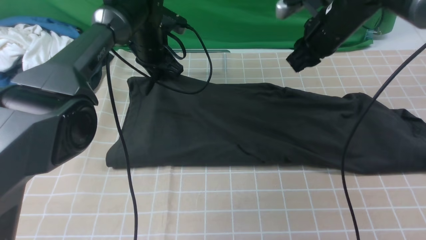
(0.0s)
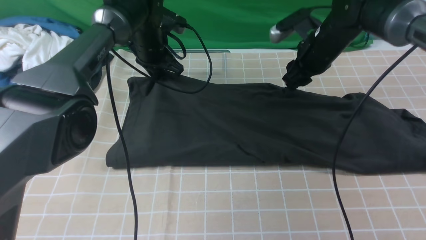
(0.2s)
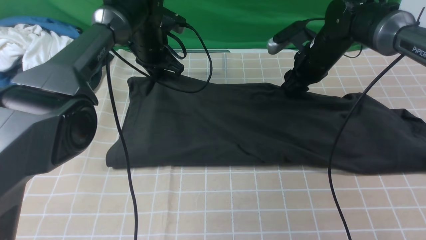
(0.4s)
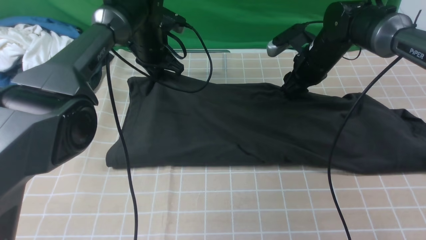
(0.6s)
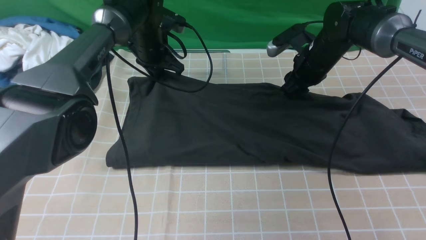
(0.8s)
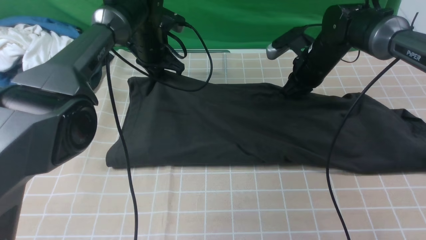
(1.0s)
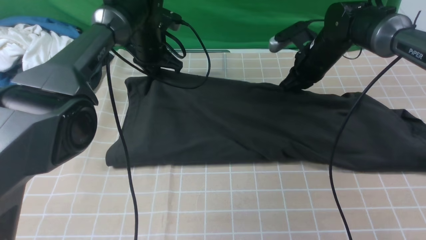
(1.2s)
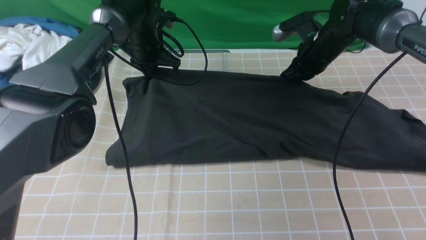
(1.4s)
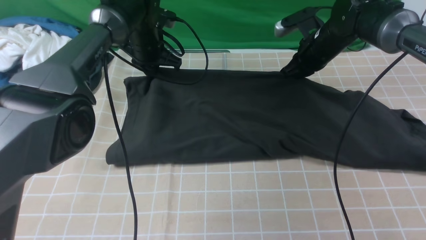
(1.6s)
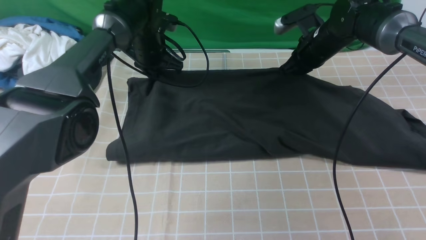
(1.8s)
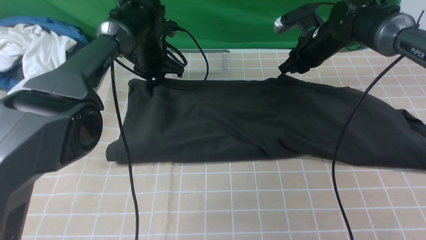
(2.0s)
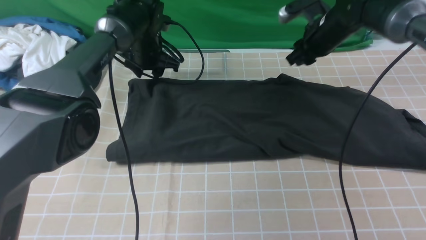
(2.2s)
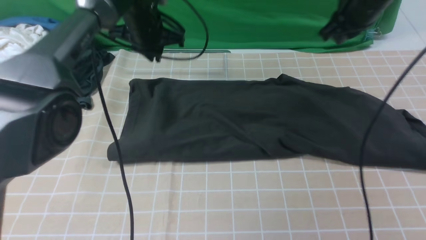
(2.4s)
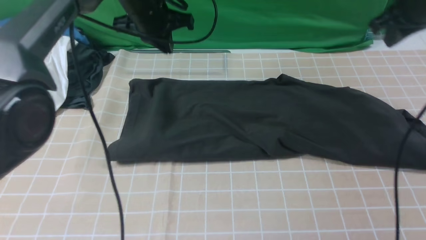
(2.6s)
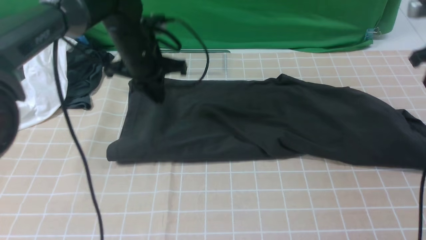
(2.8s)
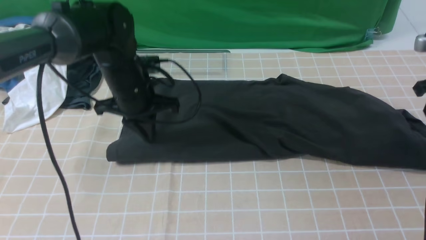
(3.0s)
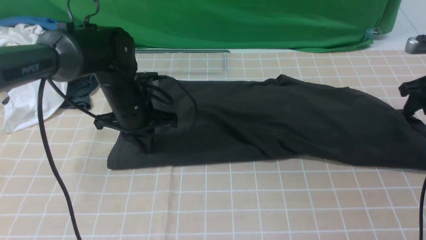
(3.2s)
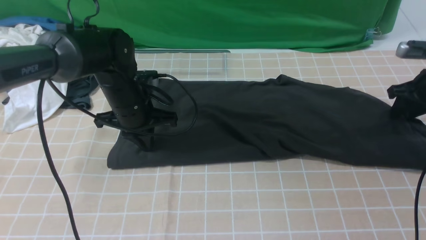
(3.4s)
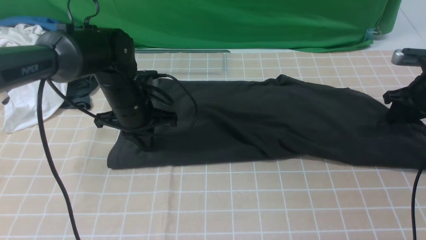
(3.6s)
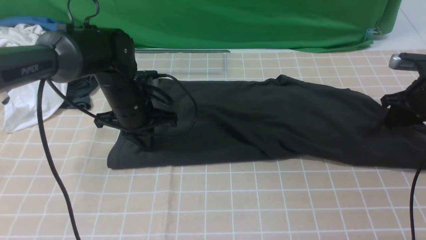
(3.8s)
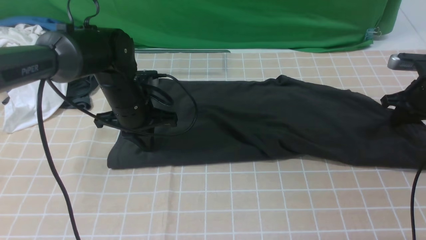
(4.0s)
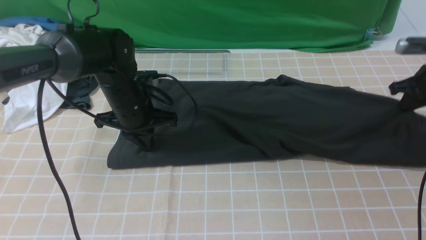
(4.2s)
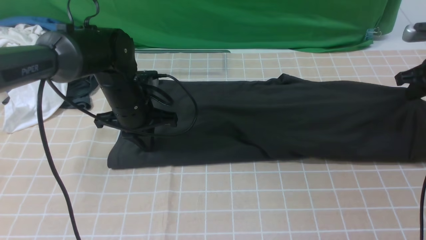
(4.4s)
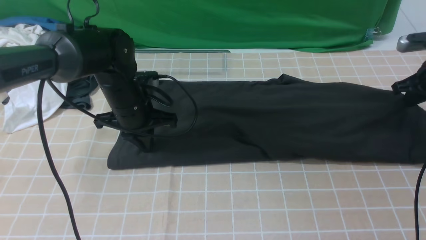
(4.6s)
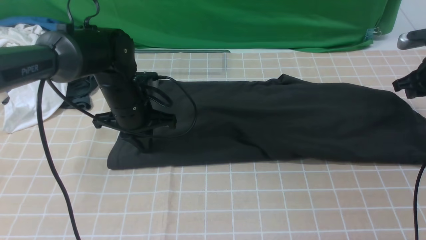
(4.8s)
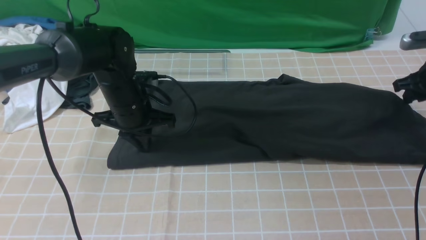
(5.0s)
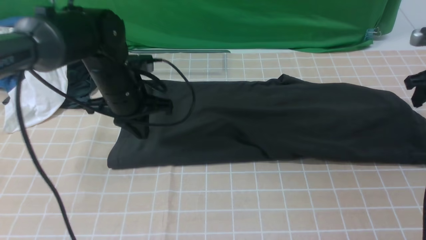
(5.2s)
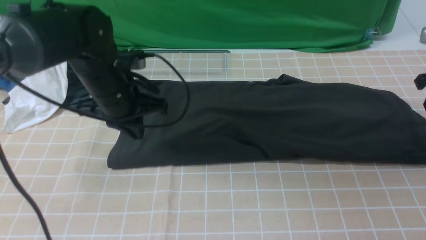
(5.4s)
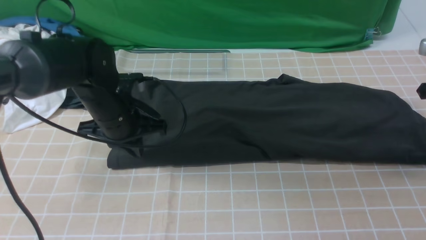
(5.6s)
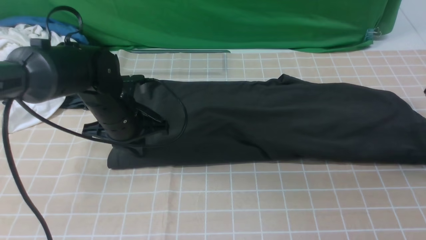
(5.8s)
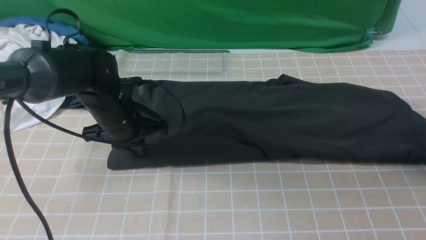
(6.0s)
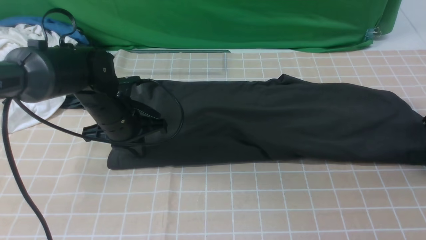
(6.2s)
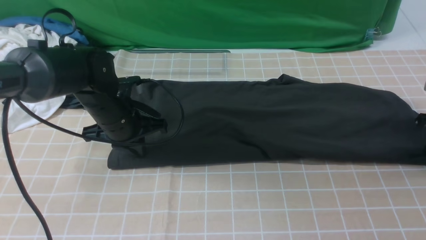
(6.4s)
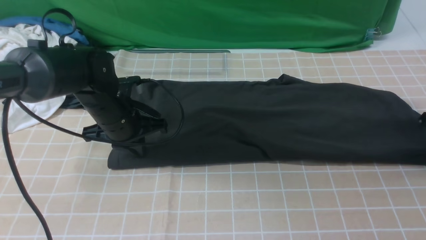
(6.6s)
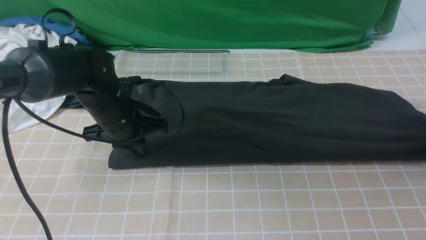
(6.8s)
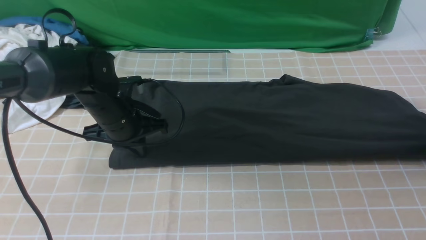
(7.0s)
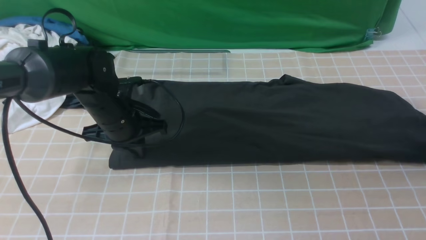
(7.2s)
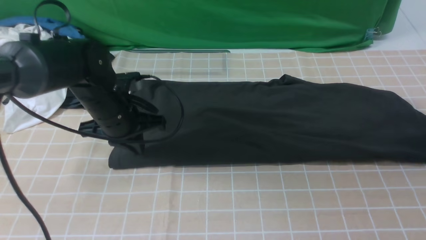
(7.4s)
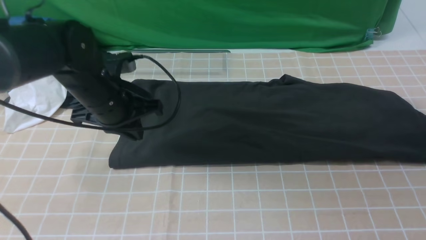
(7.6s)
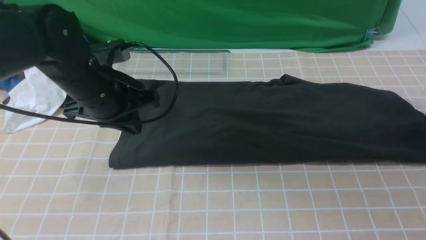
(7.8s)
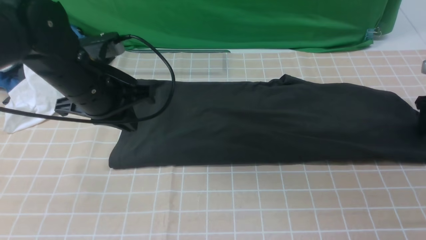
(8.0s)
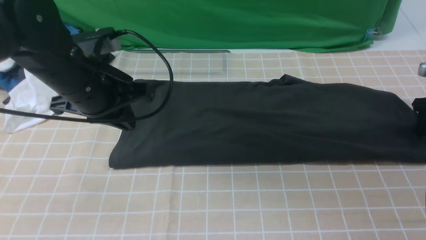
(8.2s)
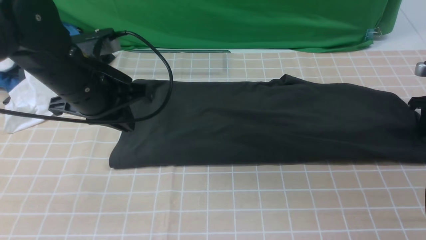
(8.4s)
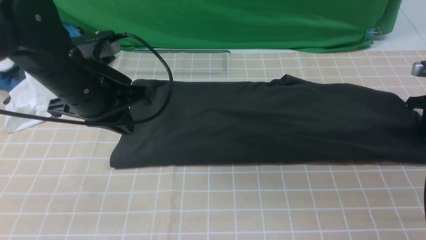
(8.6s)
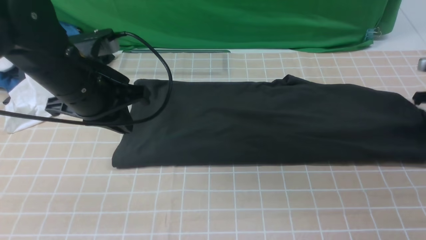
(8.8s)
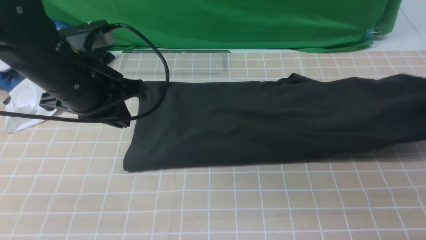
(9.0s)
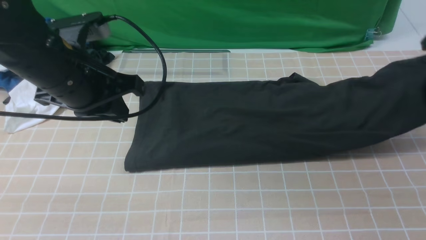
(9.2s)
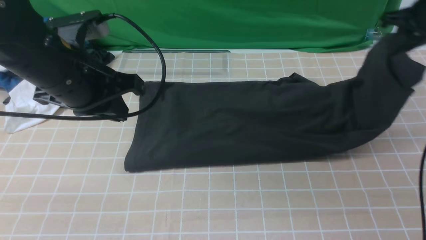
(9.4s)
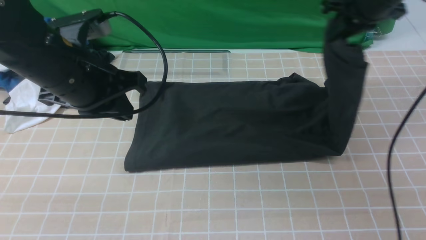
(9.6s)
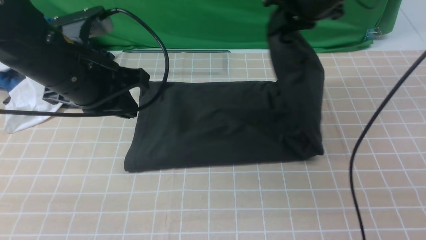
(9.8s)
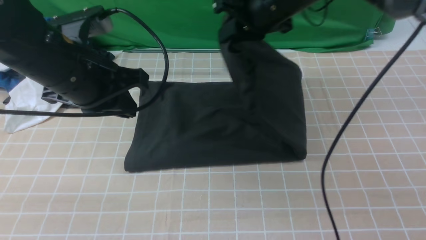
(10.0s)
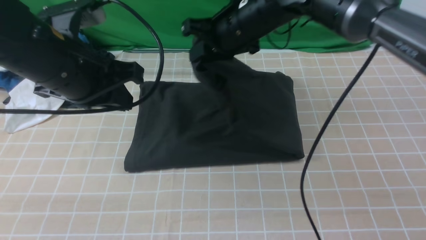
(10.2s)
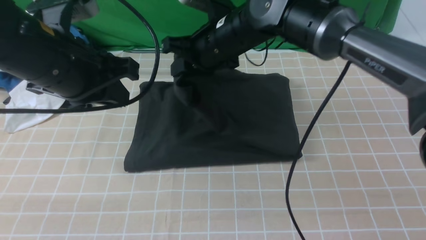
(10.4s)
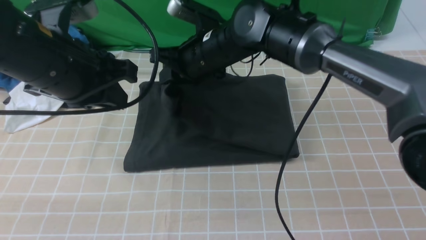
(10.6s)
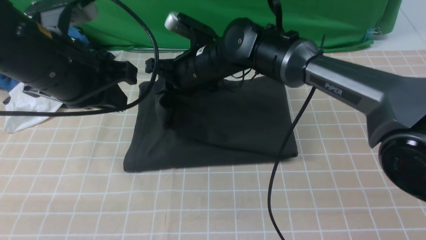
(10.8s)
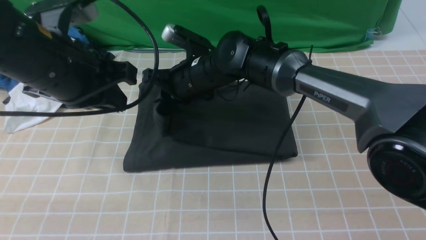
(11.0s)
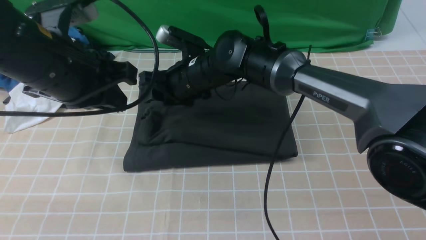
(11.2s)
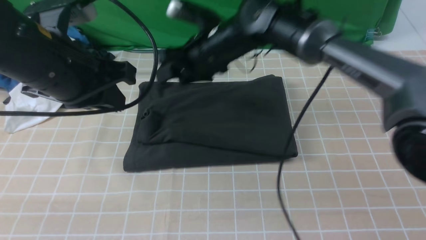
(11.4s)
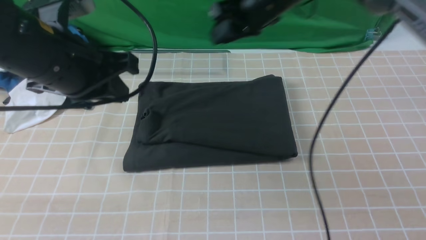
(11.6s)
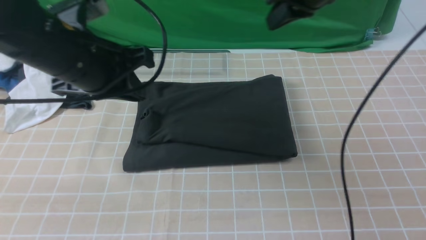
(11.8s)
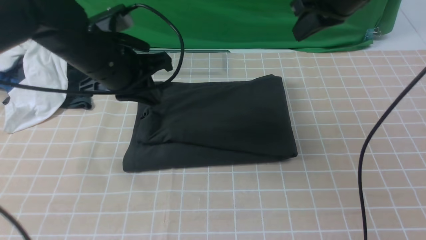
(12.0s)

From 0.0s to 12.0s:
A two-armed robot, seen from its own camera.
Step, from 0.0s to 2.2s: use both arms to drag the lower edge of the fabric forward and fold it over the upper edge.
Step, from 2.4s to 8.6s: use the right arm to clamp the right edge of the fabric.
Step, from 8.8s to 11.2s: use the right arm to drag the right edge of the fabric to the left and folds it over the left edge.
From 0.0s to 1.6s: The right gripper travels downward by approximately 5 cm, and closes its fingers.
From 1.6s to 3.0s: The left gripper goes roughly 15 cm backward, and opens, then closes again. The right gripper goes some 20 cm to the right and backward, and opens its fingers.
From 3.0s to 4.4s: The right gripper closes its fingers.
From 4.4s to 6.0s: The right gripper travels backward by about 5 cm, and opens.
From 6.0s to 7.6s: The left gripper goes some 5 cm upward; the right gripper shifts by roughly 5 cm, and closes, then reopens.
From 7.6s to 9.0s: The left gripper heads upward, covering about 5 cm. The right gripper moves approximately 5 cm downward and comes back, and closes its fingers.
From 9.0s to 10.4s: The right gripper shifts about 40 cm to the left.
From 10.4s to 12.0s: The right gripper shifts about 20 cm to the right and upward, and opens, then closes again; the left gripper is displaced forward and downward by some 10 cm.

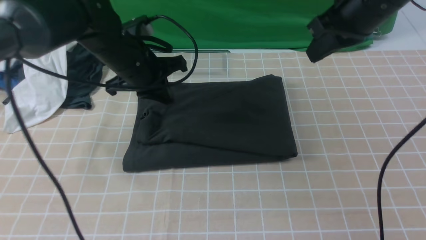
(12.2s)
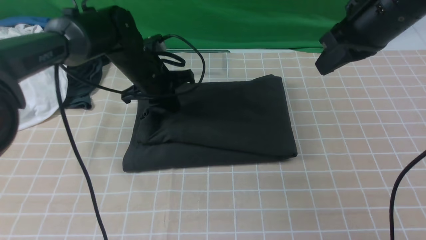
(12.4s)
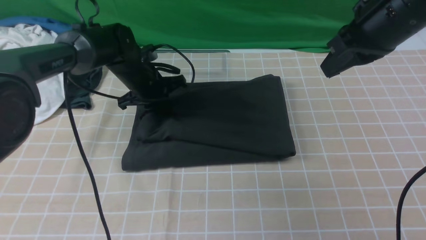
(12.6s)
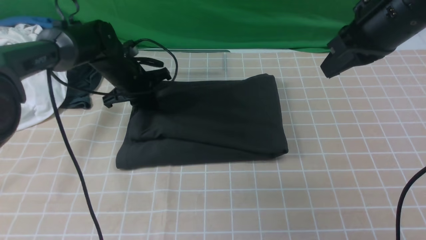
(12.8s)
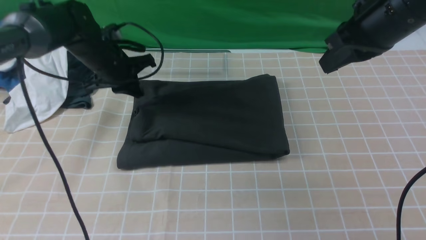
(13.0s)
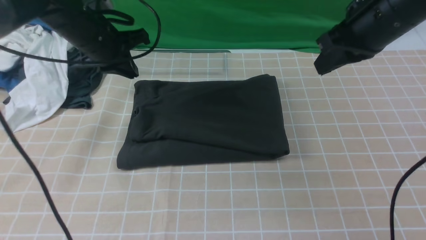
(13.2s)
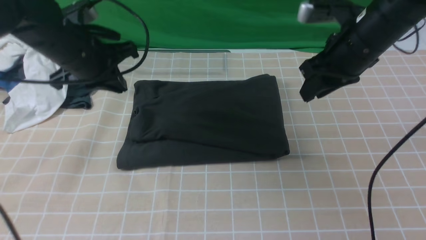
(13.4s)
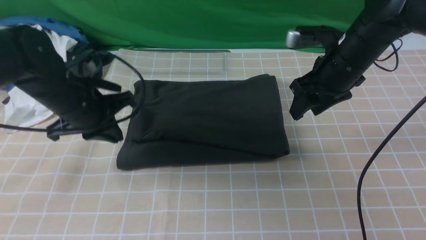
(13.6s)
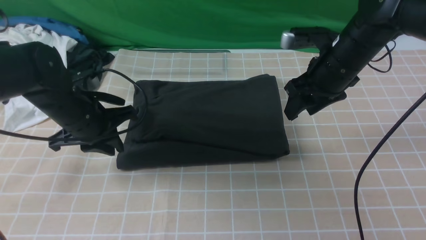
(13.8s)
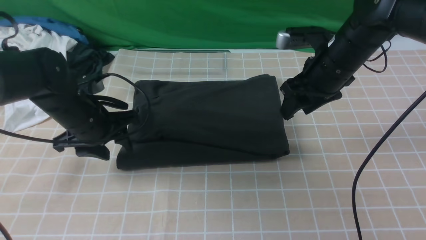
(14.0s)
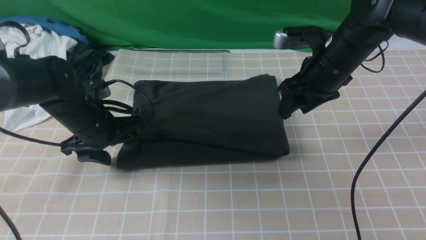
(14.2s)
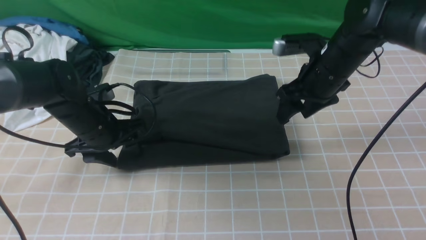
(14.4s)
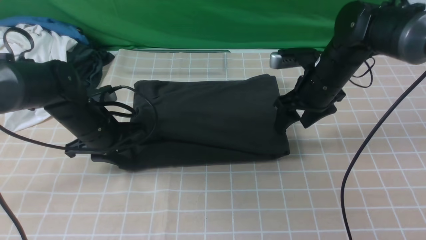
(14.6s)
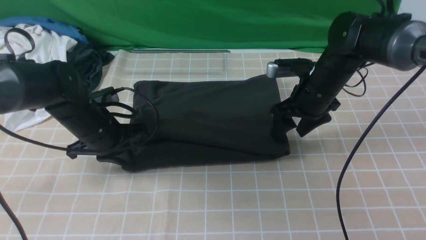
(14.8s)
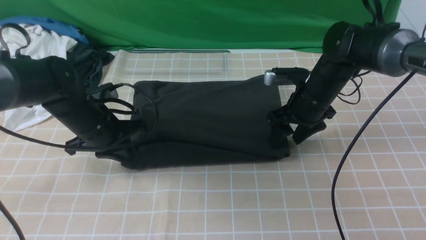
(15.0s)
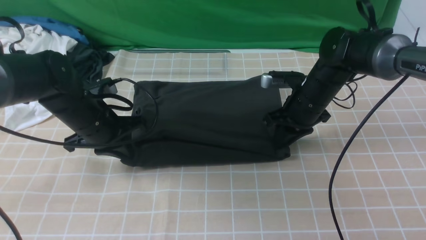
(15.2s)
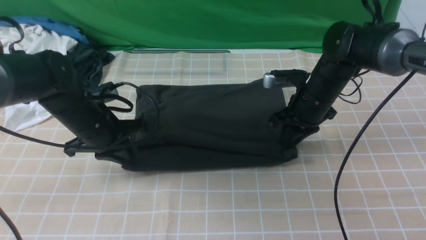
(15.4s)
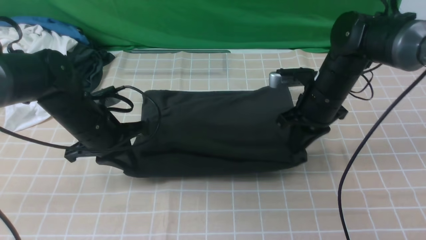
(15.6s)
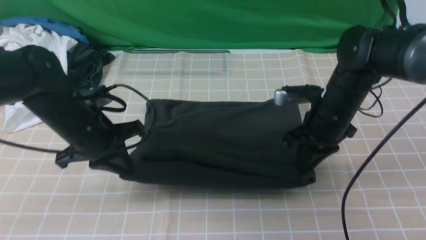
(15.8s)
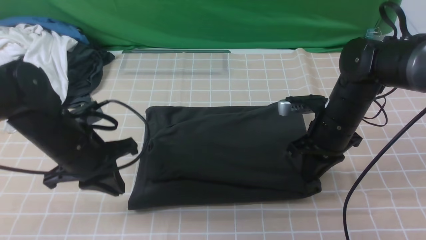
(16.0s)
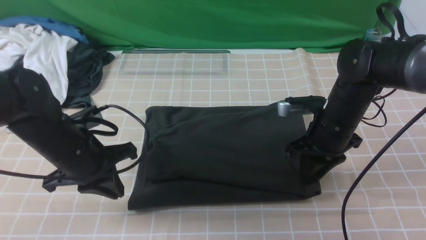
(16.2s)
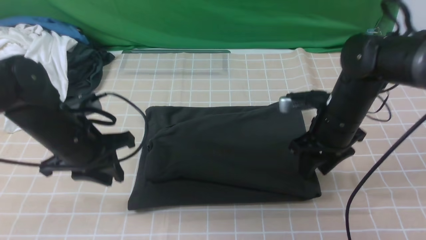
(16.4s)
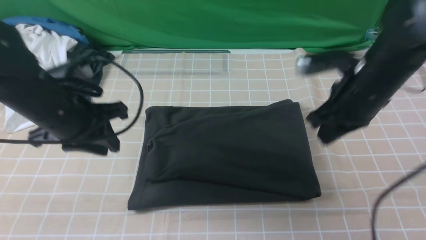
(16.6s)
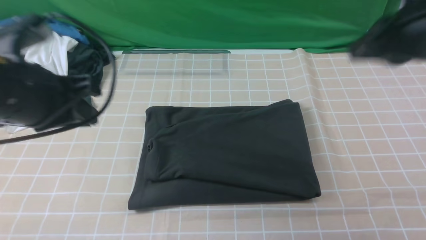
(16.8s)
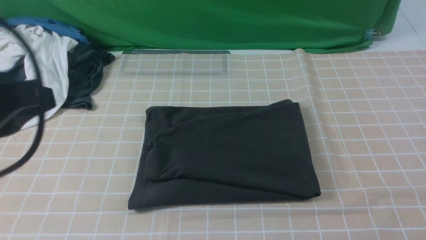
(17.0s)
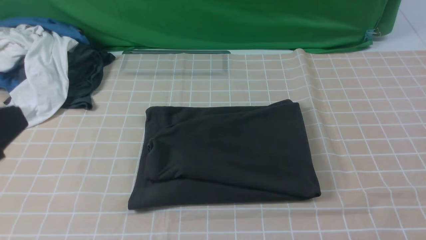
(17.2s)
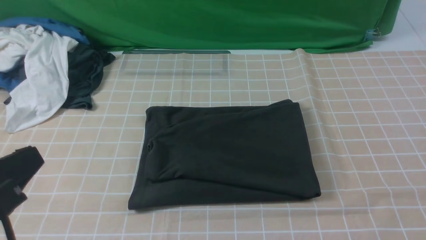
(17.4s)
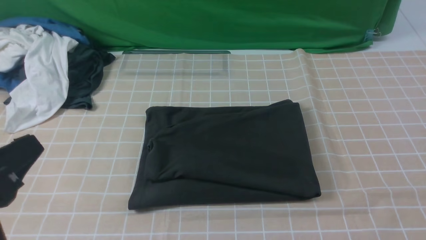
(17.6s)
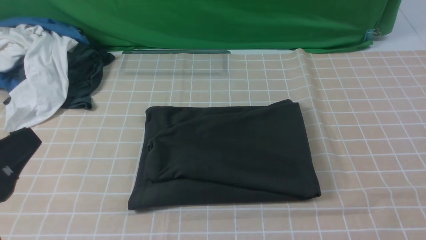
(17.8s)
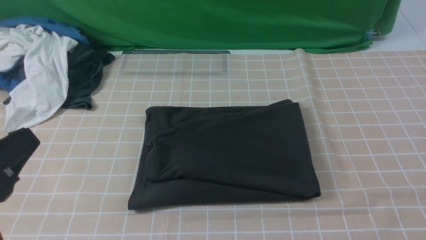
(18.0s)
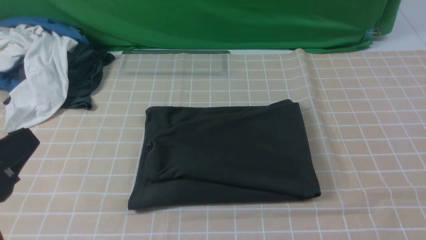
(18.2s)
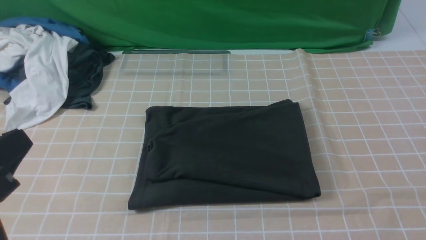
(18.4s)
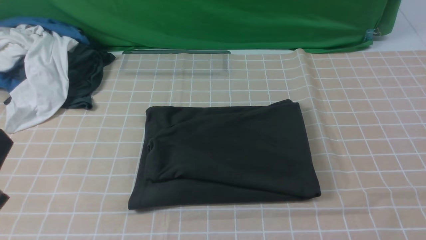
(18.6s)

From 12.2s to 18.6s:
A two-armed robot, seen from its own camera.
From 12.2s to 13.8s: The right gripper goes some 10 cm downward, and opens its fingers. Meanwhile the left gripper goes about 10 cm to the left and backward, and opens its fingers.
From 13.8s to 15.4s: The left gripper closes up. Meanwhile the right gripper is displaced downward by some 10 cm, and closes.
From 15.4s to 17.0s: The two grippers go approximately 30 cm backward and upward.
From 17.0s to 18.6s: The left gripper travels downward and backward by about 10 cm.
